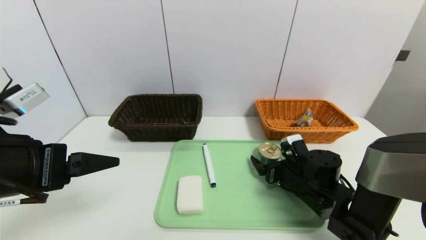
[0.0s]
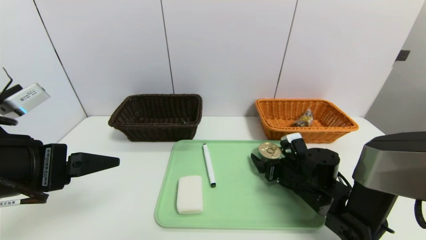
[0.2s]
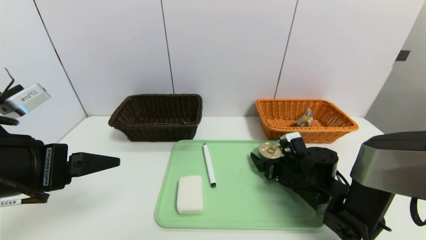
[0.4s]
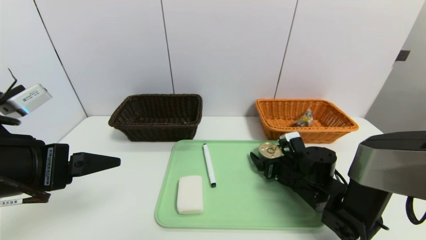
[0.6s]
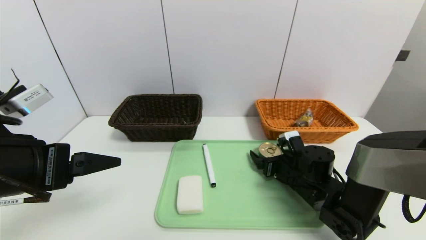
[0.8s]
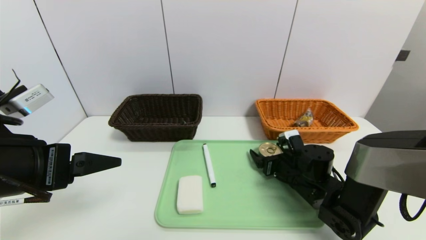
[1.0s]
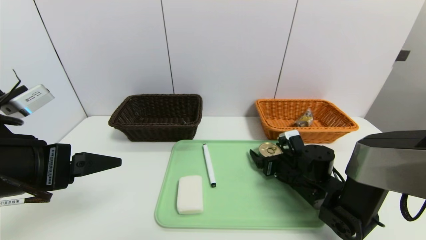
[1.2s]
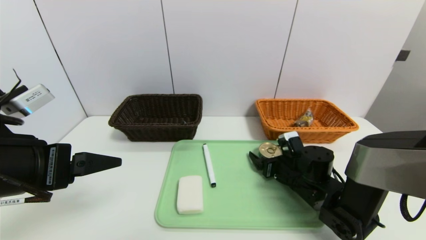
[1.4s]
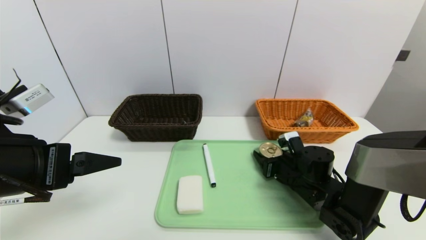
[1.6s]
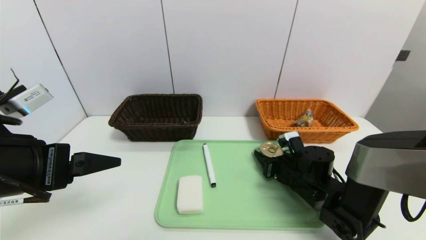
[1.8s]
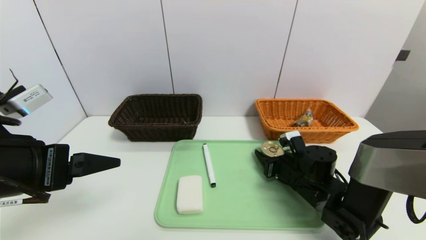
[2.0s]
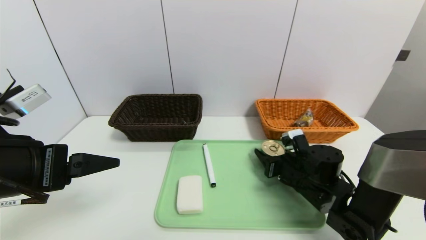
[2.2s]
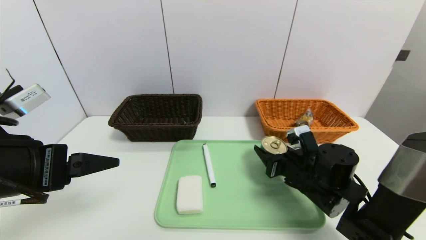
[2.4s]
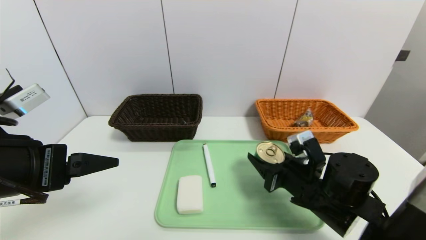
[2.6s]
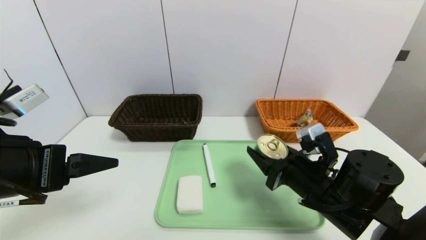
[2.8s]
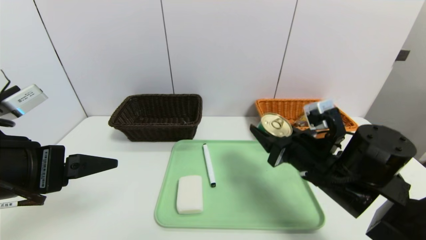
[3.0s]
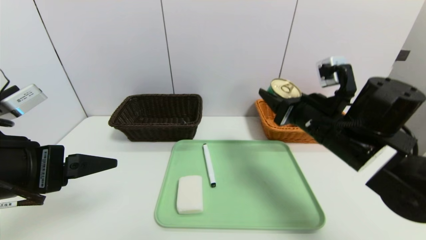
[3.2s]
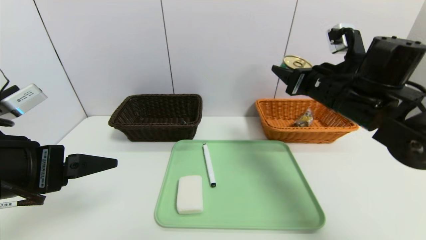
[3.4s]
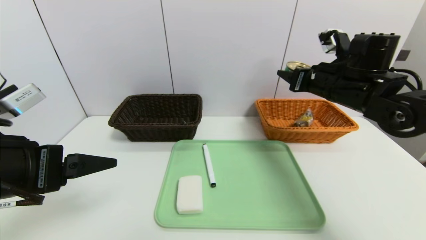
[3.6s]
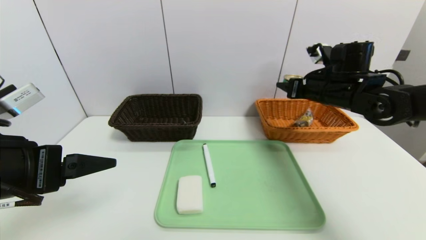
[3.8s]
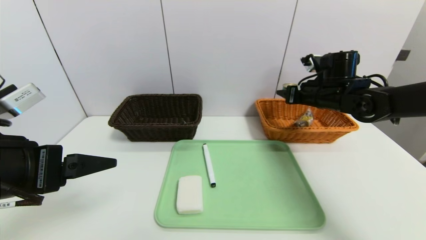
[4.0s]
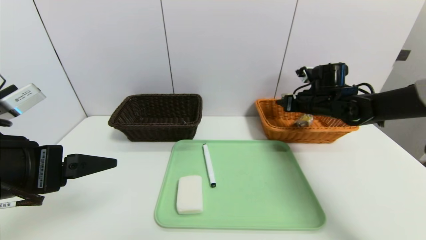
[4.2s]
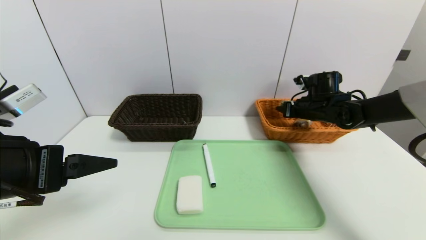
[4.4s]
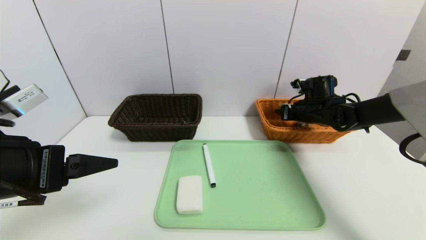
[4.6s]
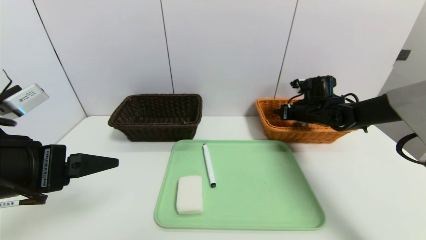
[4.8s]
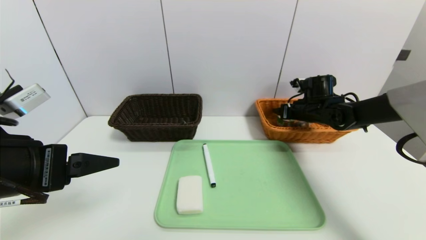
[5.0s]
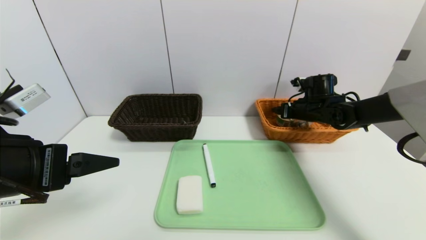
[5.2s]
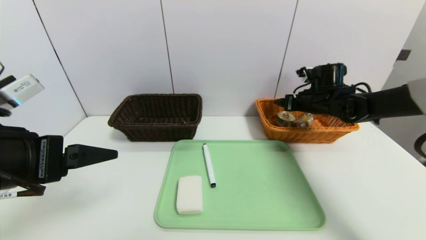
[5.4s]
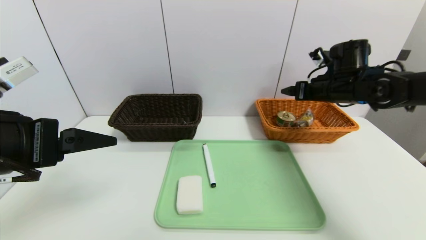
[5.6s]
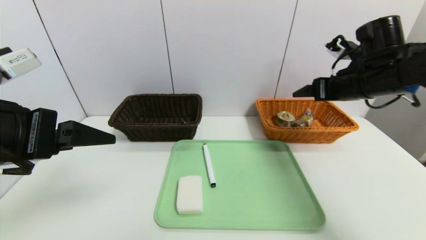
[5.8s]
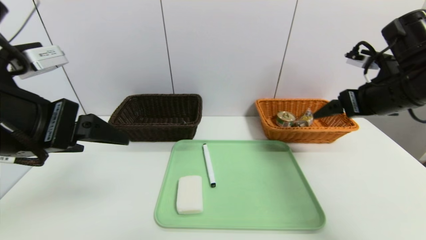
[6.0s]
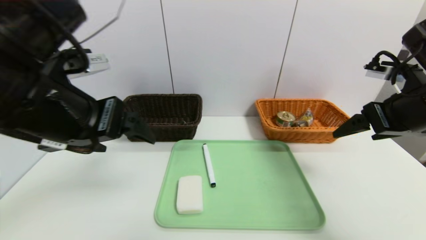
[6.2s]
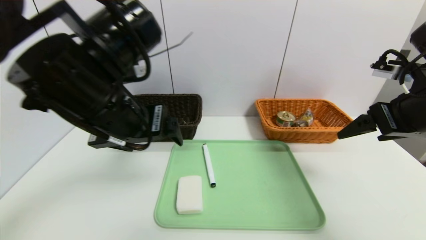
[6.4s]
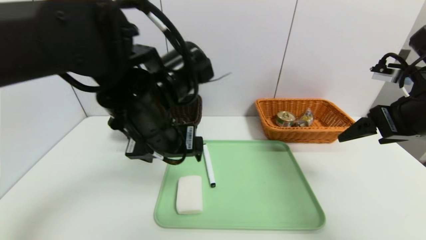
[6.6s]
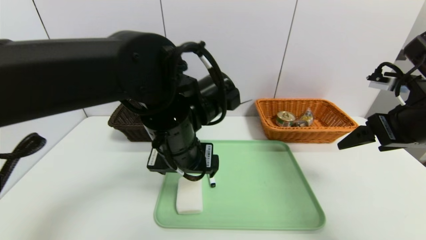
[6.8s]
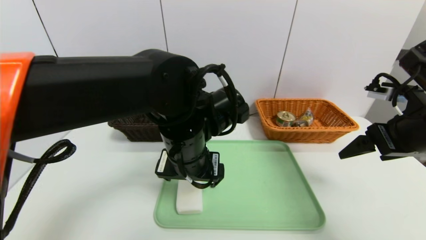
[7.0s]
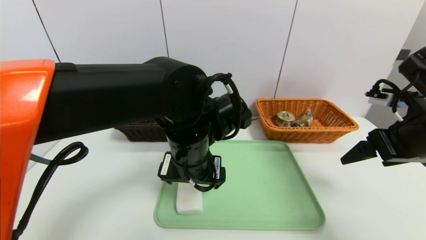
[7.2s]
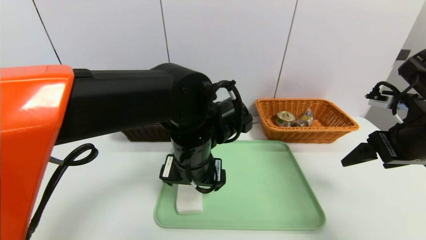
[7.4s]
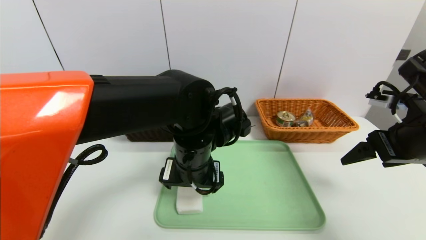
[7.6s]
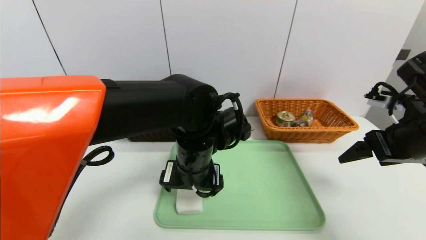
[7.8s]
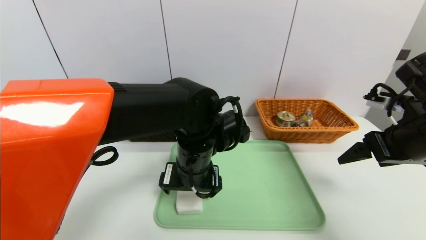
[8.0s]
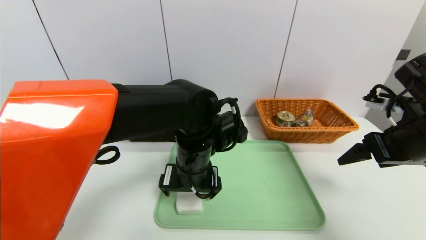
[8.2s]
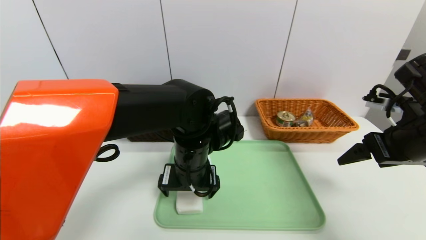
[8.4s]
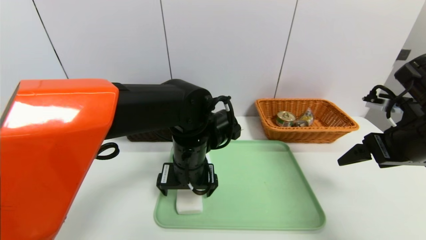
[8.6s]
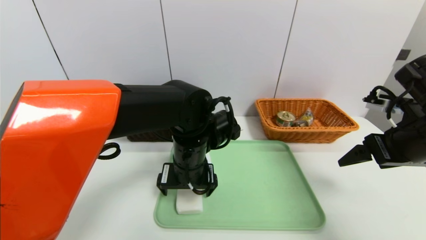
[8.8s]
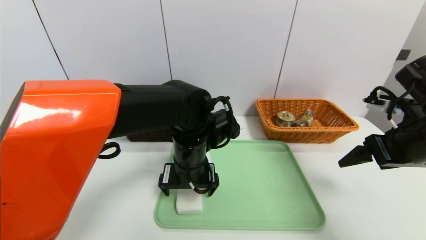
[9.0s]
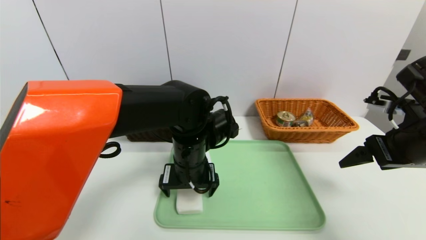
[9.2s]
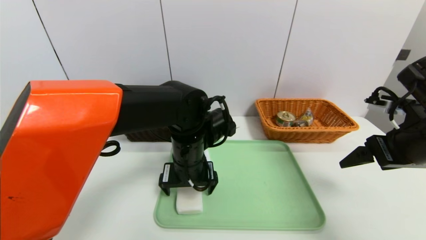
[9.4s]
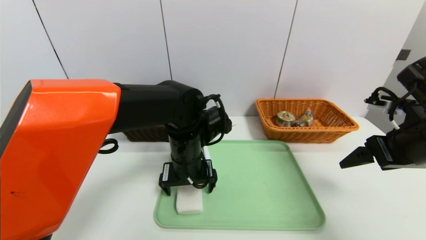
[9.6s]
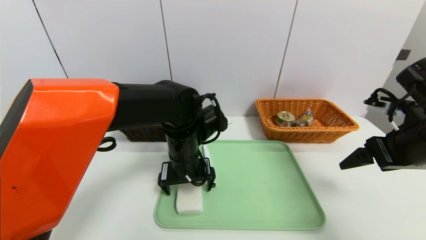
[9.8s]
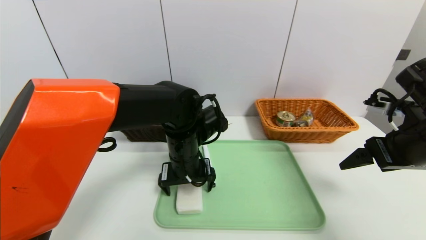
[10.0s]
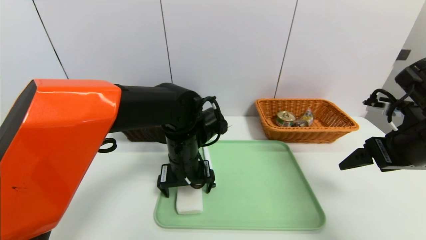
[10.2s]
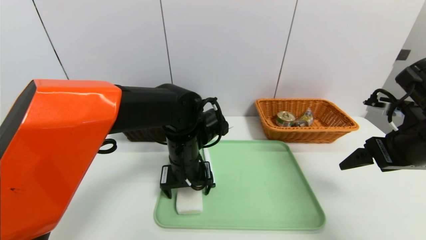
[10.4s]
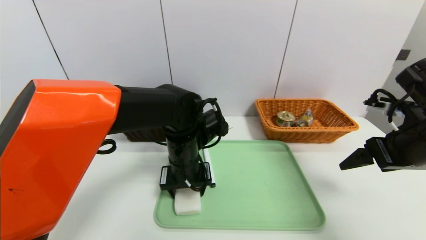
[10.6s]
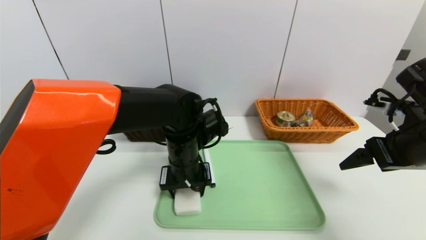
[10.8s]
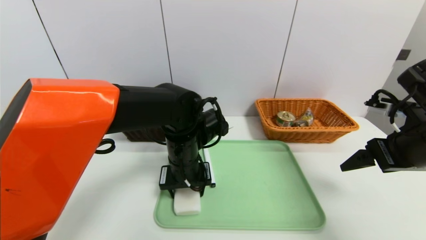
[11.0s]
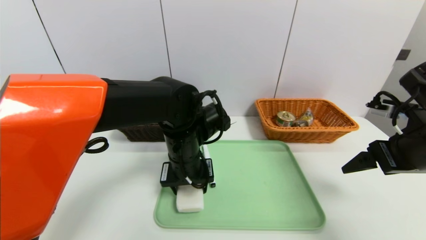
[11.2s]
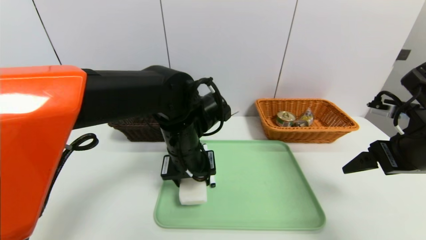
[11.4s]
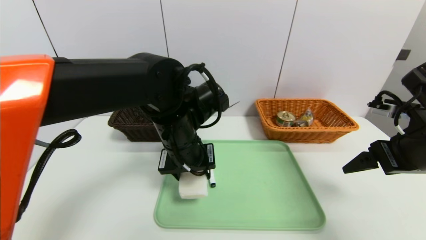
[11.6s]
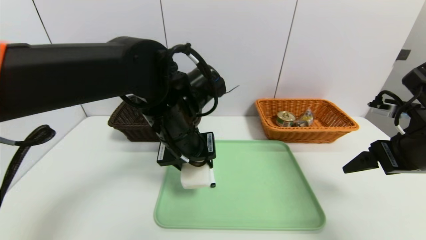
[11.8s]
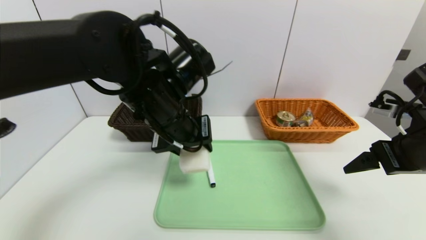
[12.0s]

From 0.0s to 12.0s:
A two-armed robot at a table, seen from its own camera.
Task of the whole recording: place the food in the right basket with the right gripper, and place the non food items in the left basket with the left gripper.
Step, from 0.0s to 5.4s: Grasp the tin and put it in the right basket.
From 0.0s to 1.6s: There are only small adjustments of the grippers.
From 1.6s to 3.0s: The right gripper travels upward and backward by roughly 15 cm.
From 3.0s to 4.4s: The right gripper travels forward and to the right by approximately 25 cm.
From 4.4s to 6.0s: The left gripper travels upward by roughly 5 cm; the right gripper is displaced backward and upward by approximately 20 cm, and opens its fingers.
From 6.0s to 7.6s: The left gripper heads to the right, downward and forward, covering roughly 25 cm; the right gripper shifts by about 5 cm.
From 7.6s to 10.4s: The grippers move only a little.
From 10.4s to 12.0s: The left gripper goes about 10 cm upward.

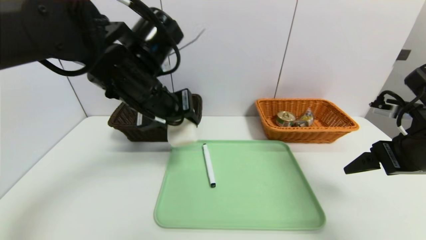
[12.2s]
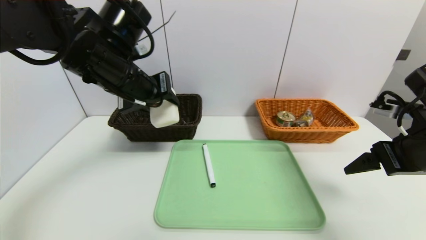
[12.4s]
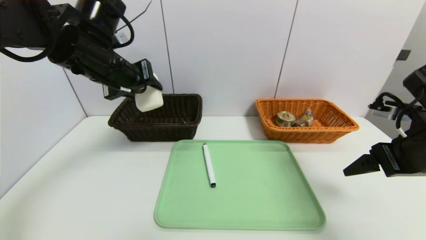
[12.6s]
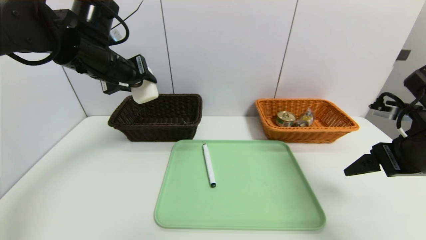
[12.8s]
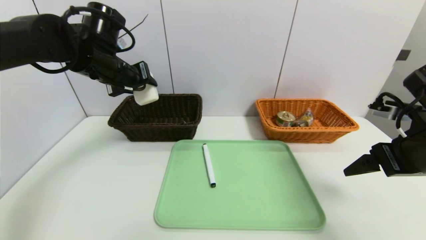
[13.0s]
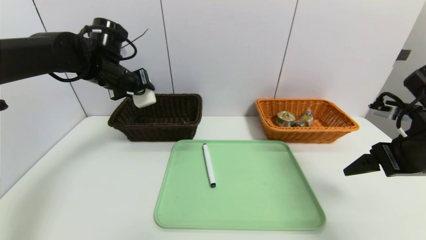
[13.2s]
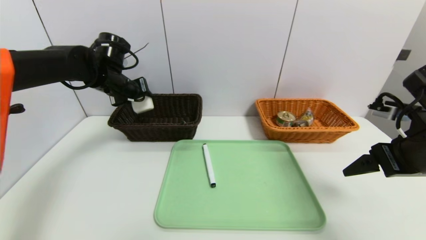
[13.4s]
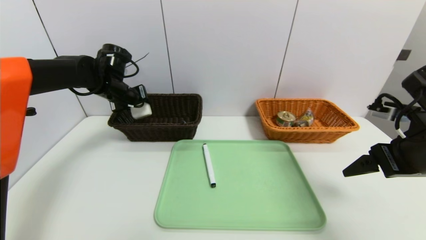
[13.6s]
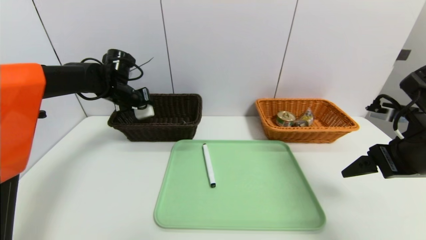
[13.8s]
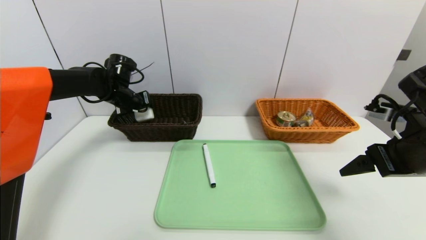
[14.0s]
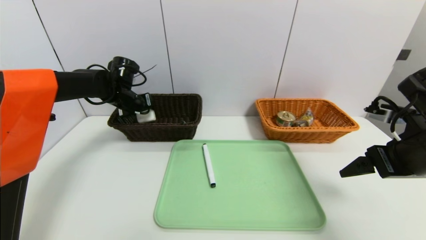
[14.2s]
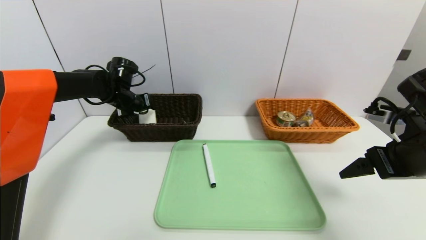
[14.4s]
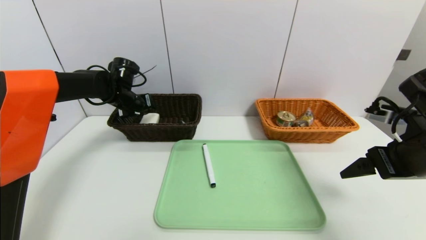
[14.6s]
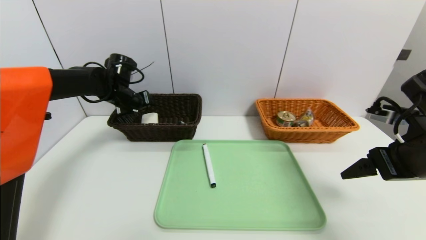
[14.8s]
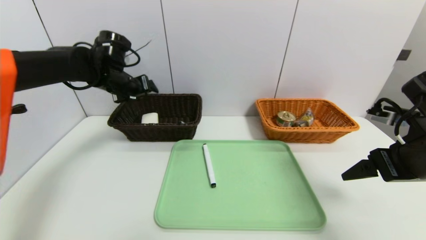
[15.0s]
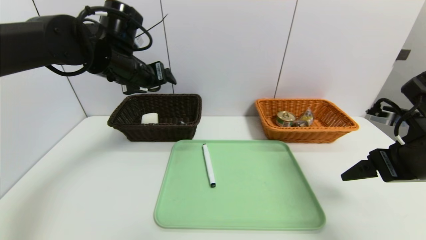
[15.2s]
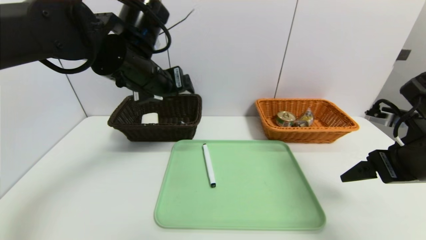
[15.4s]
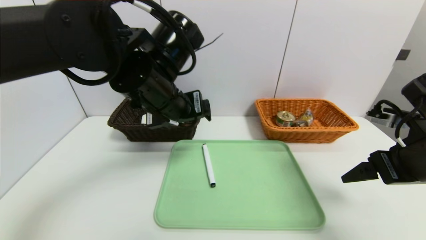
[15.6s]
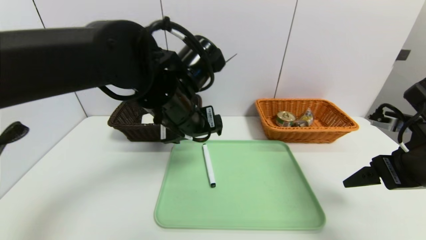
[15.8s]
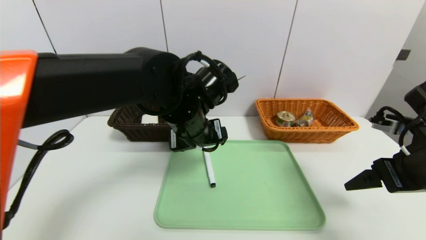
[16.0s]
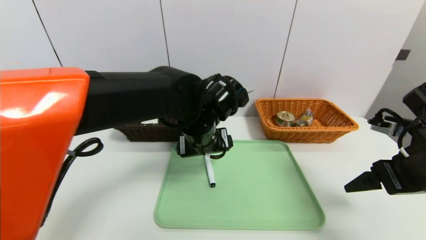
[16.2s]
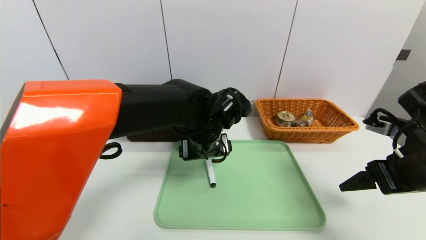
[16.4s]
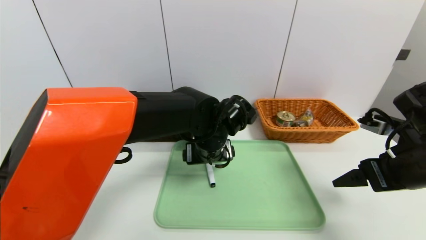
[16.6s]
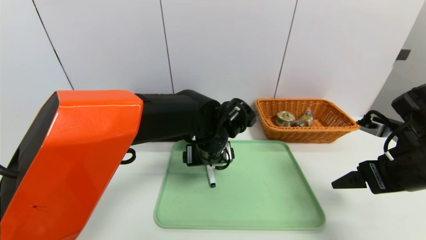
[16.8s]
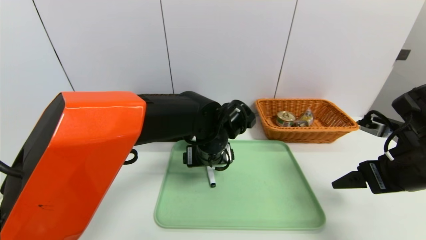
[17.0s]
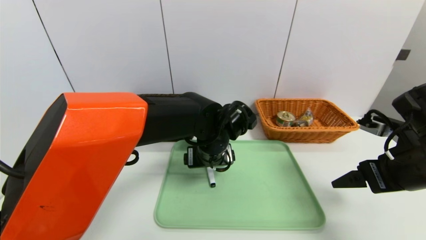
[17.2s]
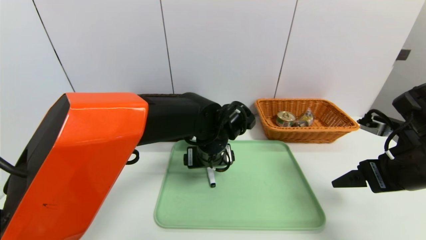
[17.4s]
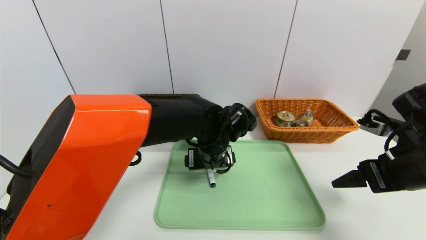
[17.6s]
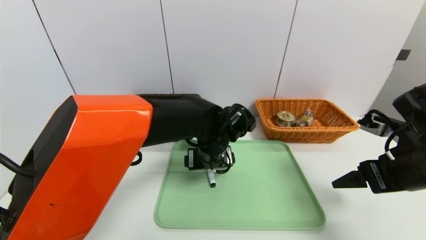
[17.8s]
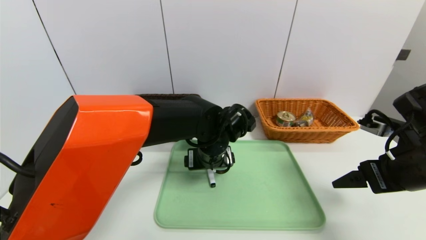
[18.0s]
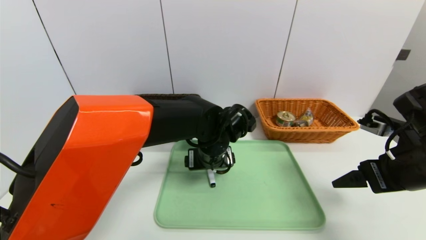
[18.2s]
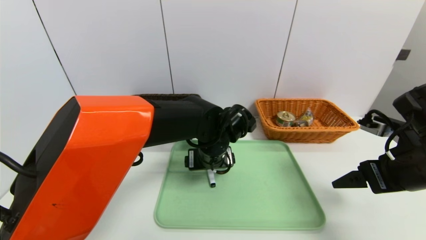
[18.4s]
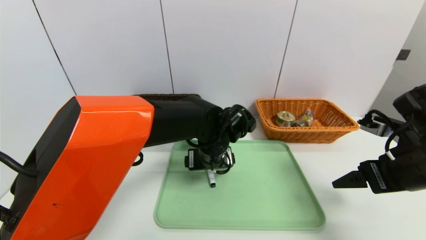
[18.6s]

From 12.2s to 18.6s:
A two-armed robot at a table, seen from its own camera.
Task of the whole recording: place the food in the right basket with the right gripper, and place the non food items in the left basket with the left gripper.
Step, from 12.2s to 14.8s: Grasp the soap and put it in the left basket.
From 12.2s to 13.8s: The left gripper moves forward, to the left and downward, roughly 25 cm.
From 13.8s to 15.4s: The left gripper travels backward, to the right and upward by approximately 20 cm, and opens its fingers.
From 15.4s to 17.0s: The left gripper goes about 20 cm downward and to the right.
From 17.0s to 18.6s: Both grippers stay put.
